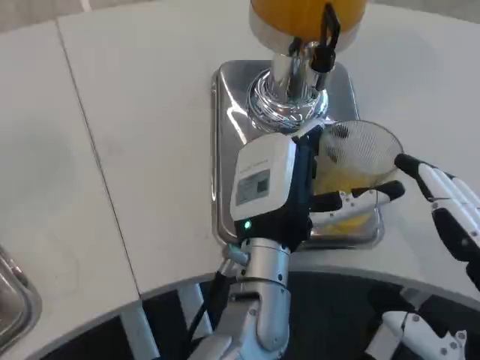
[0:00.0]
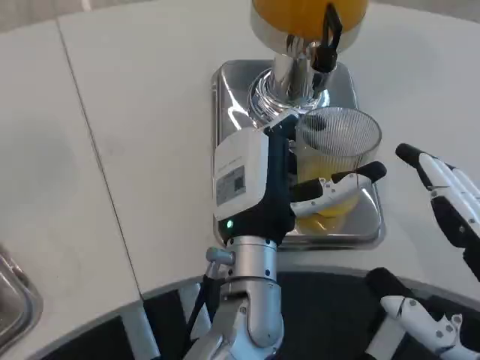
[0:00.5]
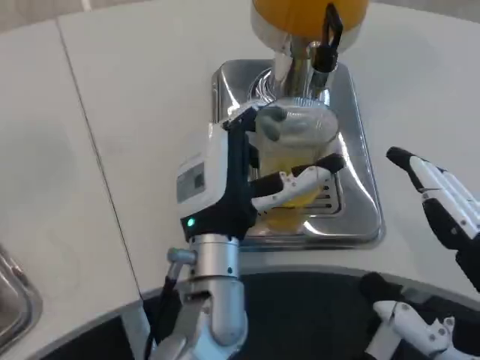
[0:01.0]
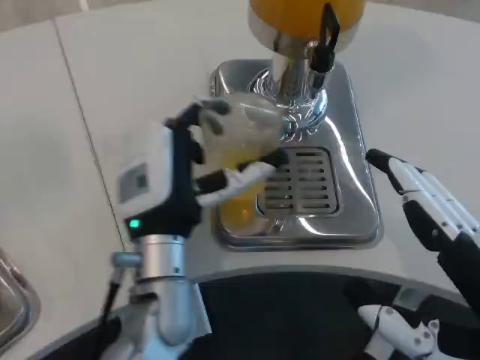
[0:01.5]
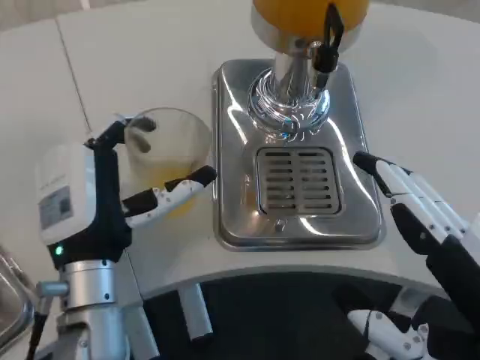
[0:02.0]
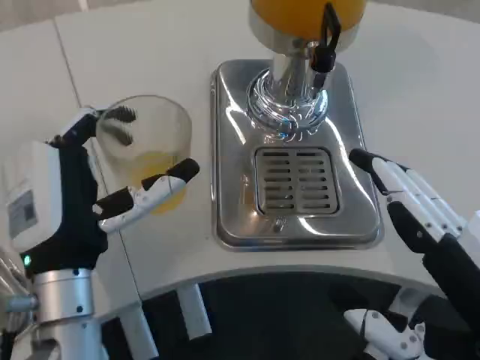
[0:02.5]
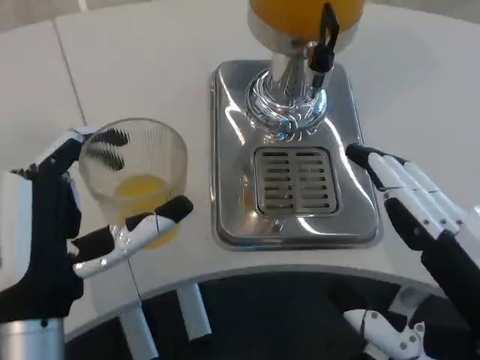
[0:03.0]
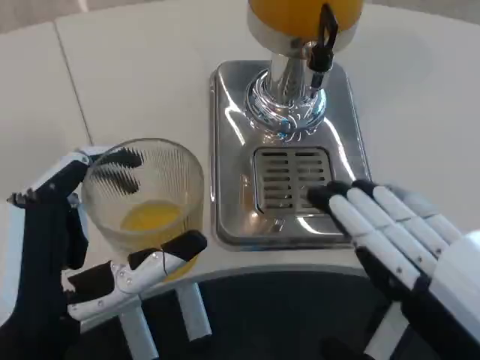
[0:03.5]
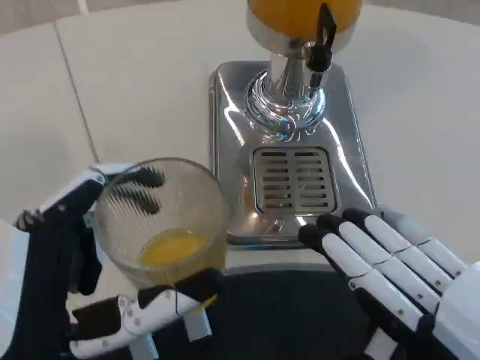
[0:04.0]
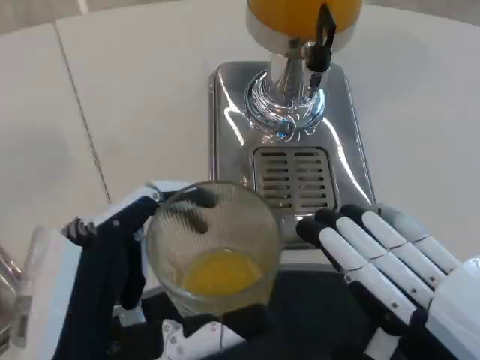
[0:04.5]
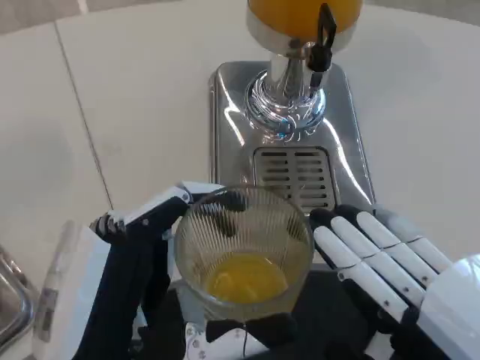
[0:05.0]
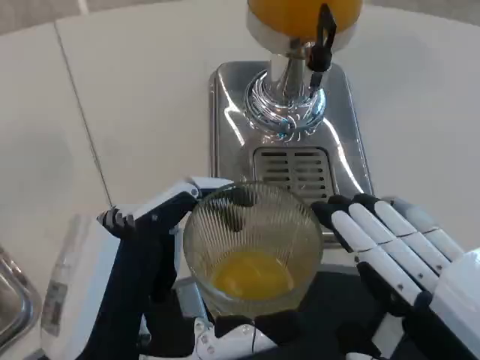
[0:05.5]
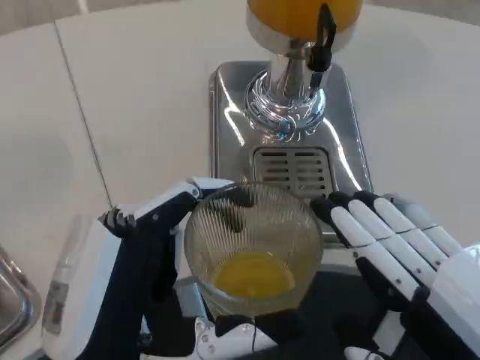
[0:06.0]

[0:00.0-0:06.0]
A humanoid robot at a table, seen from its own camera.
Task of the whole recording: Grasp the cup under the faucet to collect the drink, then remove the cup.
0:00.0 to 0:02.0: The left hand travels to the left by about 15 cm.
0:02.0 to 0:04.0: The left hand goes roughly 15 cm backward.

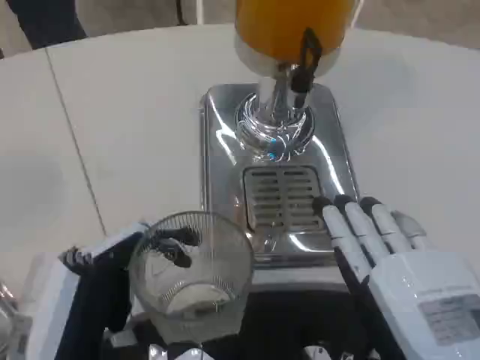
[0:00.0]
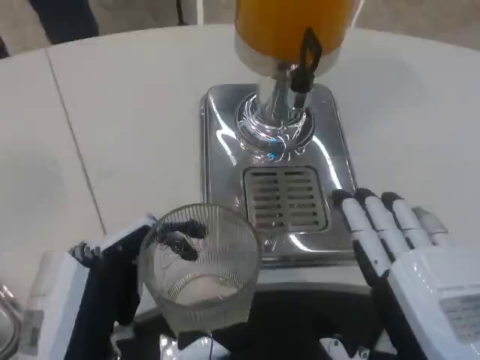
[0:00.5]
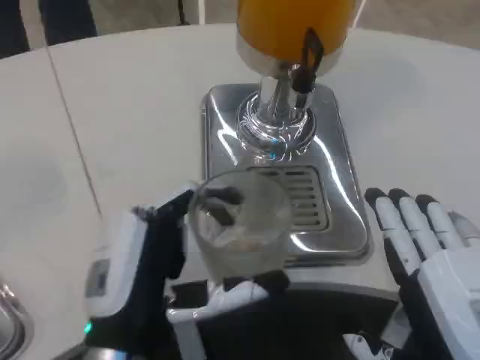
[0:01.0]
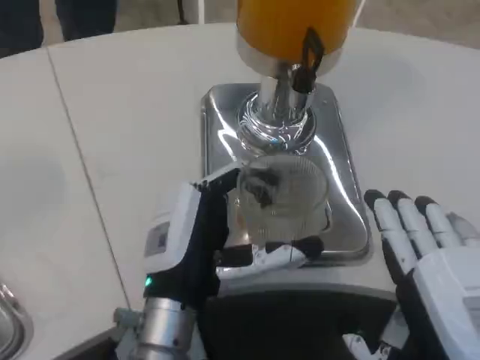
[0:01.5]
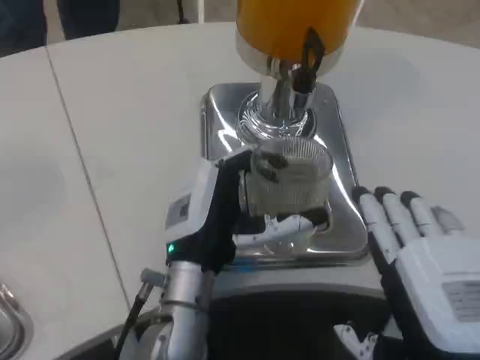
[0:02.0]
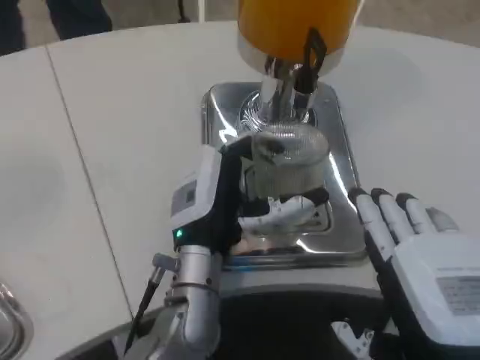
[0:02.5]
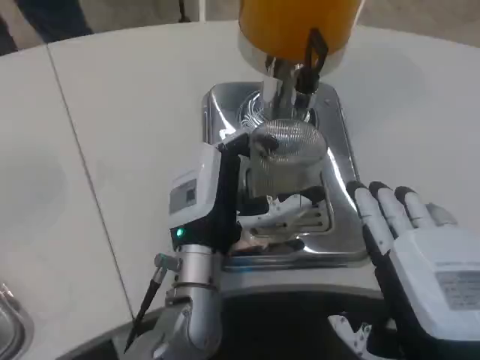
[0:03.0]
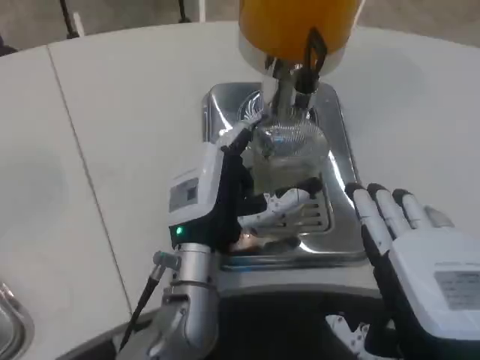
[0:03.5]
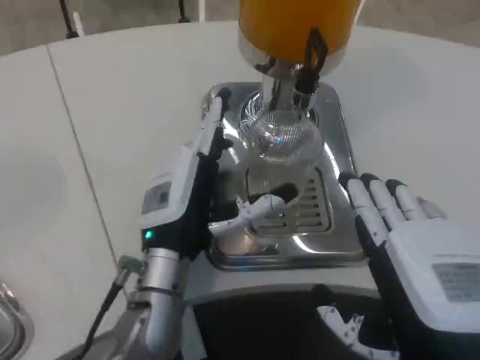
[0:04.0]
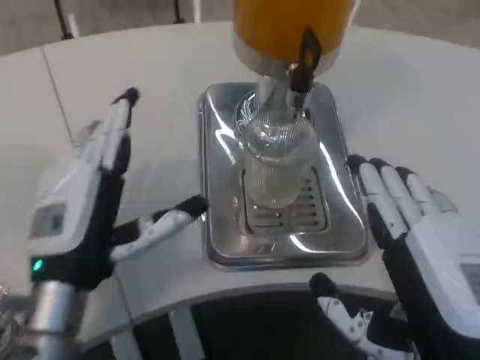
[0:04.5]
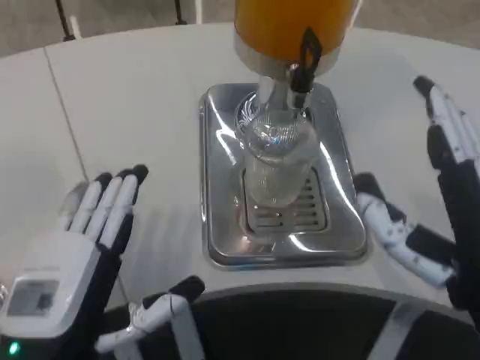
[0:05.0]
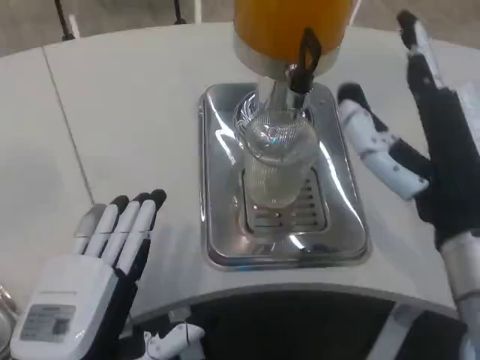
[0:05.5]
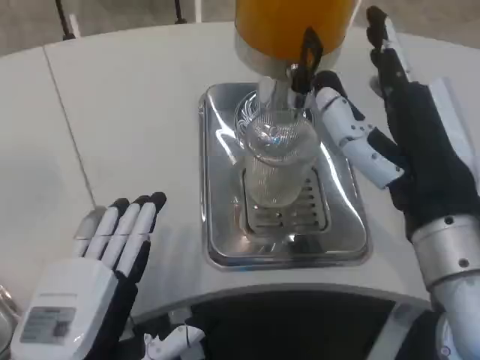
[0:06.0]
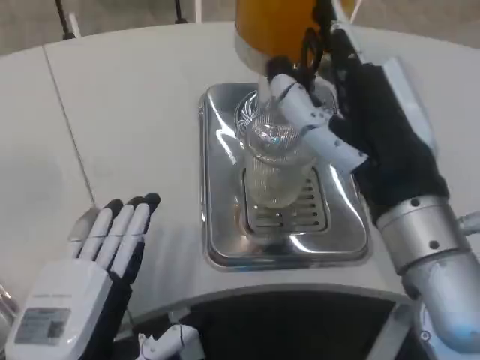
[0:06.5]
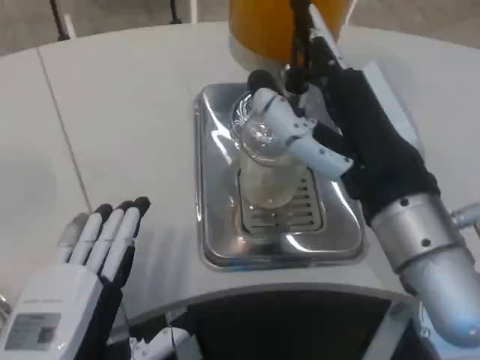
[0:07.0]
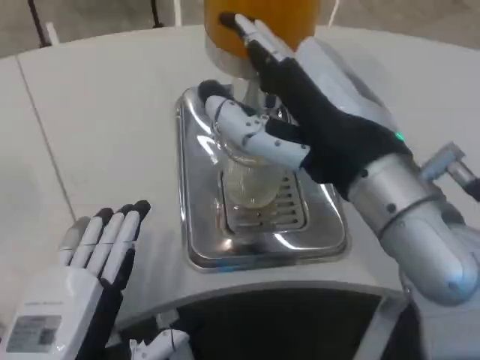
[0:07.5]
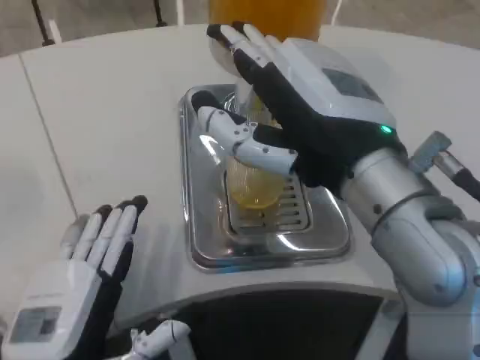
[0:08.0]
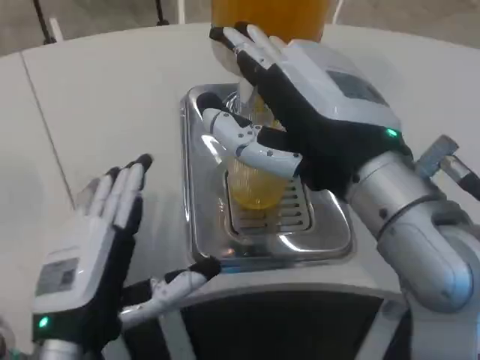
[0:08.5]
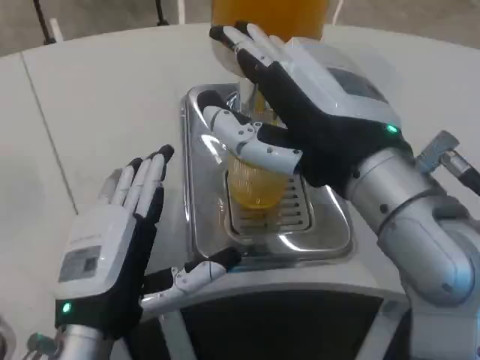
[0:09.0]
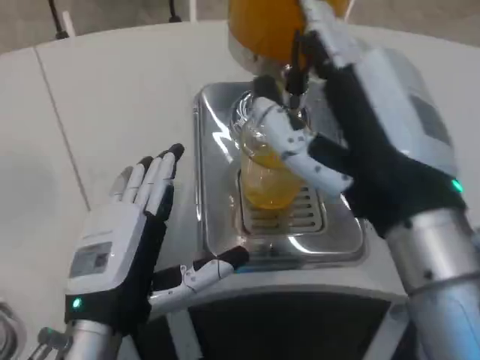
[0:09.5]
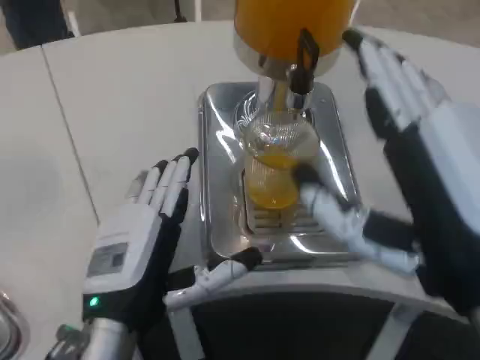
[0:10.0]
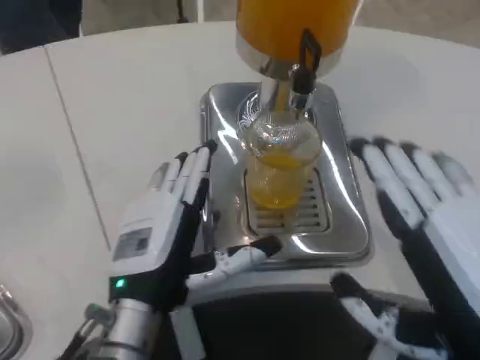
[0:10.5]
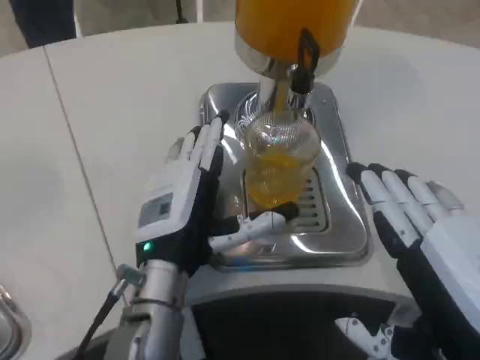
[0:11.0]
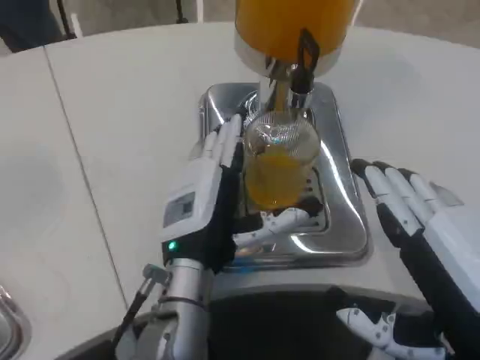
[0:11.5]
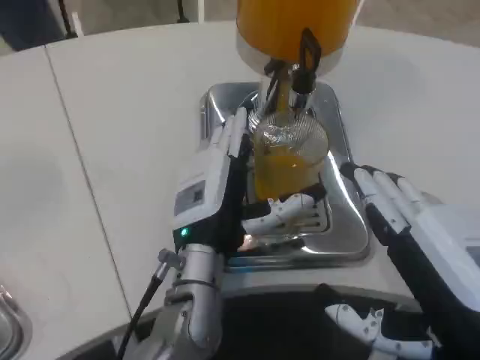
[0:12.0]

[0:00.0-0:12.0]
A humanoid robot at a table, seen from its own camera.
Task of the whole recording: Grasp the cup under the faucet to collect the drink, then remove the cup.
0:00.0 to 0:02.0: The left hand moves forward and to the right, some 20 cm.
0:04.0 to 0:06.0: The right hand travels forward by some 10 cm. Meanwhile the left hand travels backward and to the left by some 15 cm.
0:06.0 to 0:08.0: The right hand moves upward, roughly 5 cm.
0:08.0 to 0:10.0: The right hand goes approximately 10 cm backward and to the right. Meanwhile the left hand goes about 5 cm forward.
0:10.0 to 0:12.0: The left hand shifts roughly 10 cm to the right and forward.

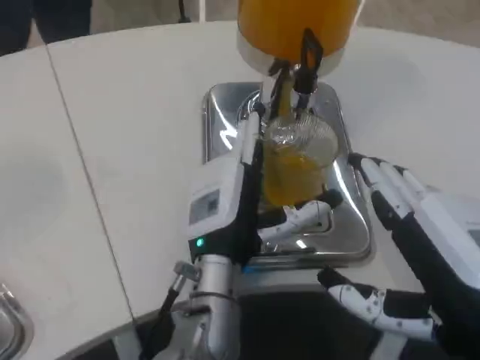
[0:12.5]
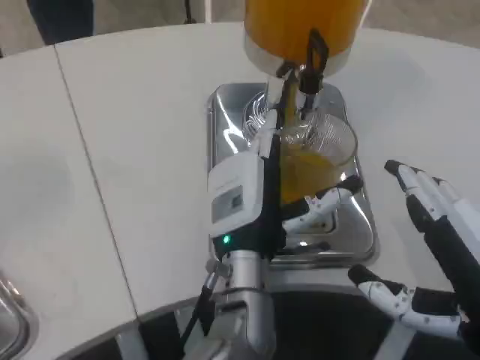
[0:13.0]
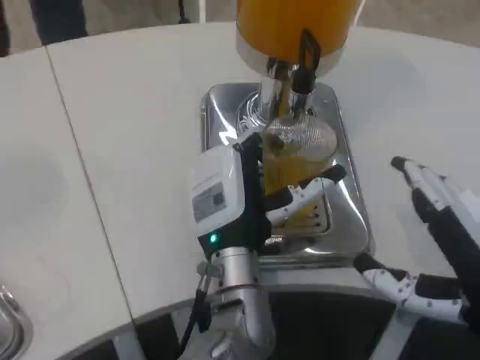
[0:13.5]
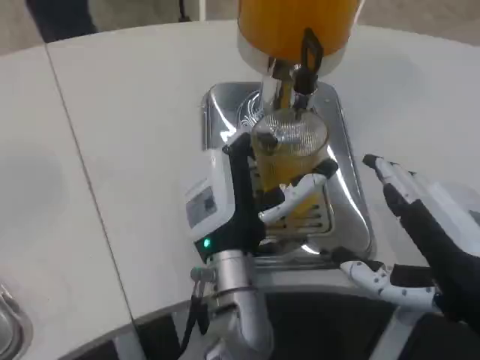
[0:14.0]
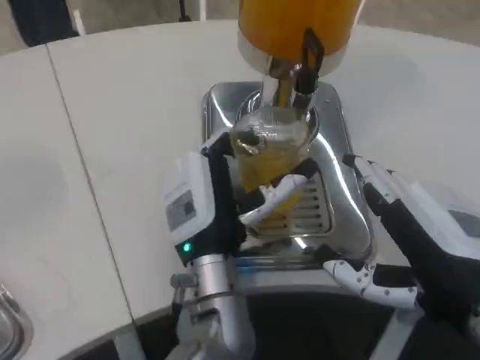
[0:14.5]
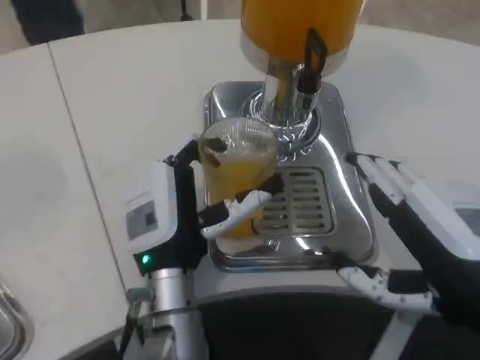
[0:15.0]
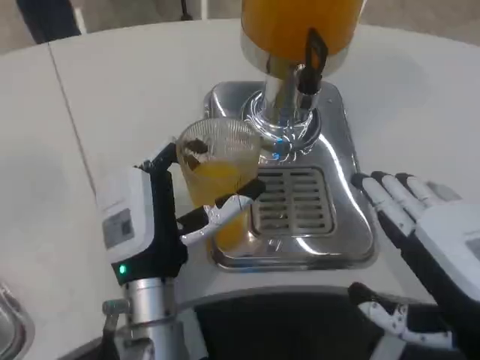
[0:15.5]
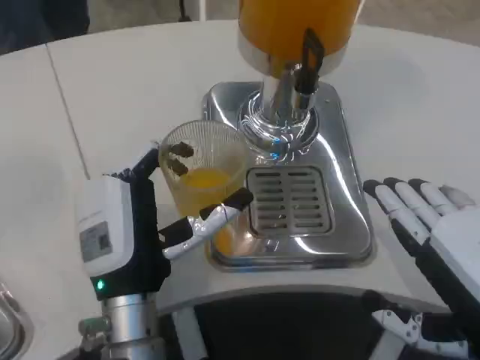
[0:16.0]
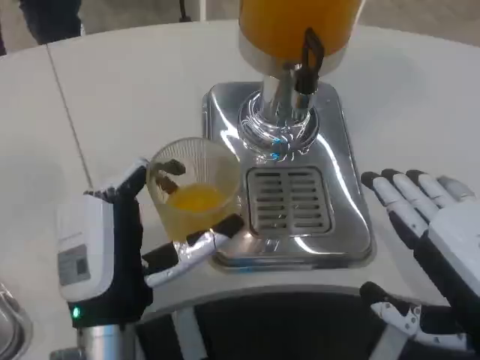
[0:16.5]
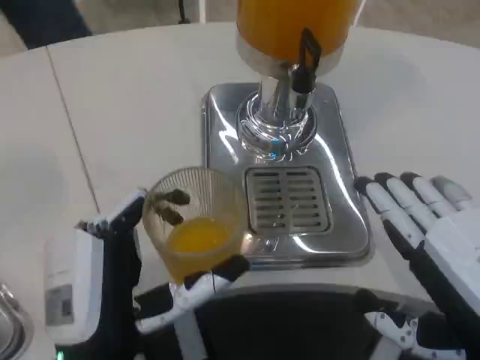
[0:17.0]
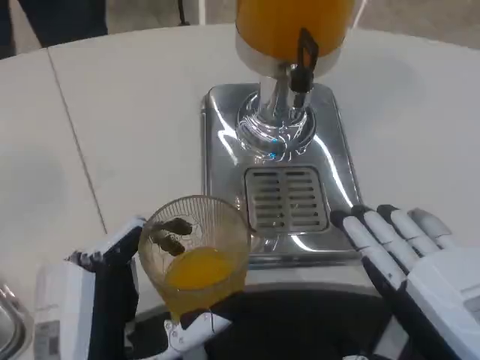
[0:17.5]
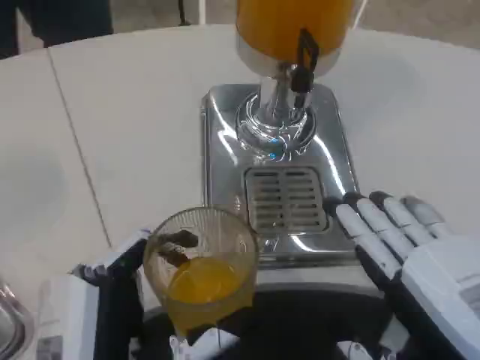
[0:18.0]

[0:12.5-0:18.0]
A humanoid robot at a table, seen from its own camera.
Task of the whole recording: Grasp the cup under the faucet to collect the drink, then remove the cup.
0:12.5 to 0:14.5: The hands stay close to where they were, moving slightly.
0:14.5 to 0:16.0: The left hand goes about 10 cm to the left.
0:16.0 to 0:18.0: The left hand travels backward by about 15 cm.

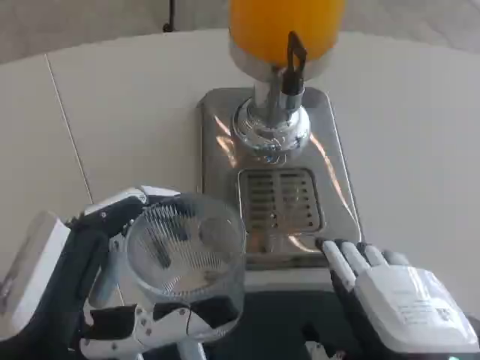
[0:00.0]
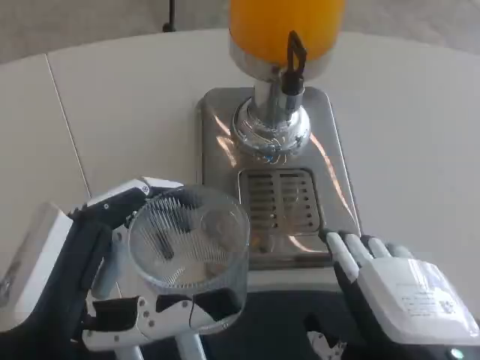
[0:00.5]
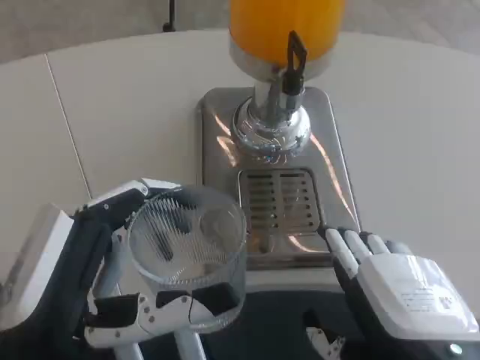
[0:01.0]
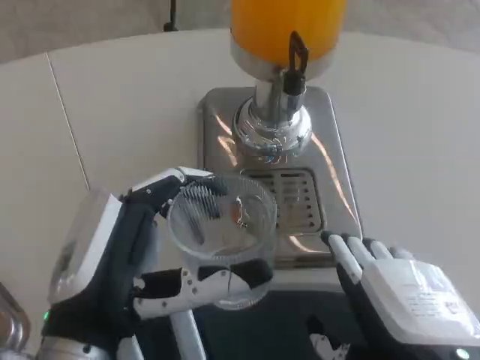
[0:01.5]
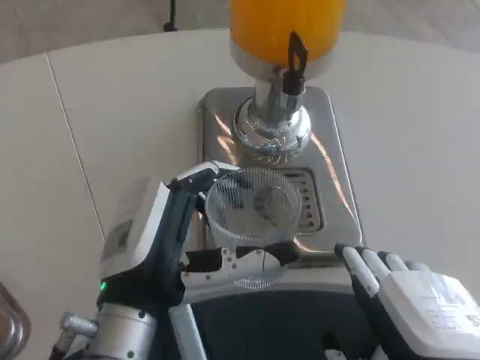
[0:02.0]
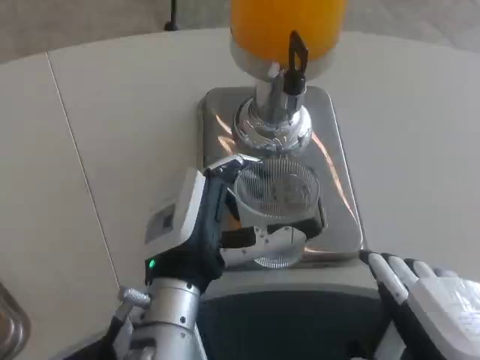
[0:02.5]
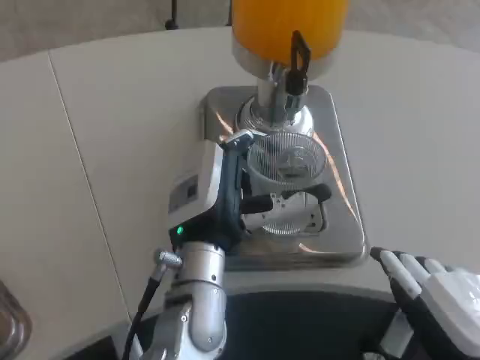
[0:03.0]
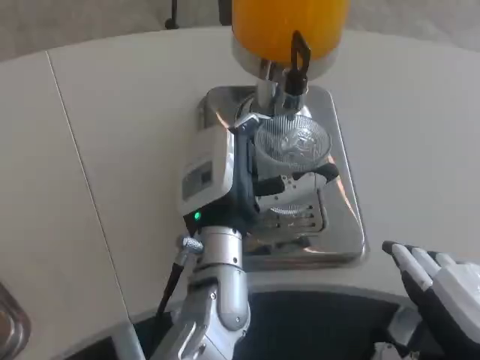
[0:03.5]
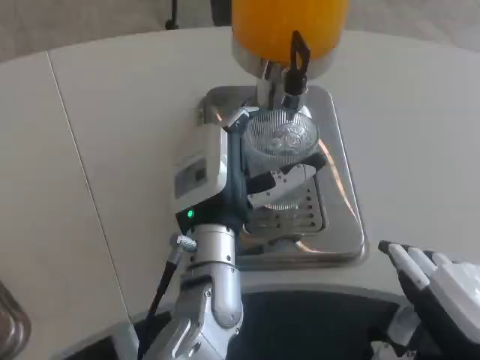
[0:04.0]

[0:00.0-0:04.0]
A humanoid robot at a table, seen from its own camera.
Task of the whole recording: Grasp the cup under the faucet to collect the drink, then remove the cup.
0:00.0 to 0:02.0: The left hand goes roughly 10 cm forward and to the right.
0:02.0 to 0:04.0: The left hand is displaced forward and to the right by about 15 cm.
